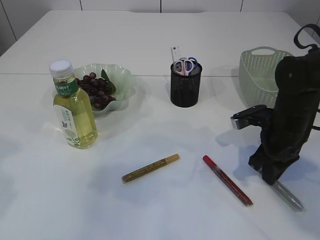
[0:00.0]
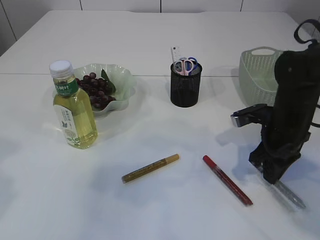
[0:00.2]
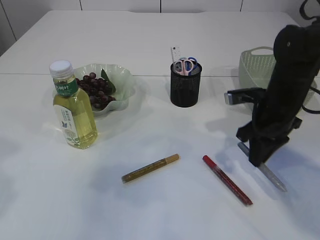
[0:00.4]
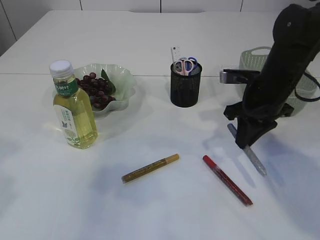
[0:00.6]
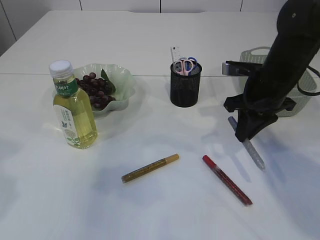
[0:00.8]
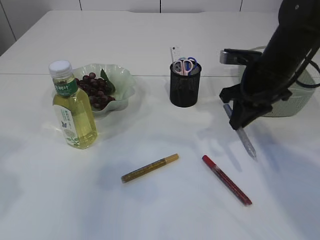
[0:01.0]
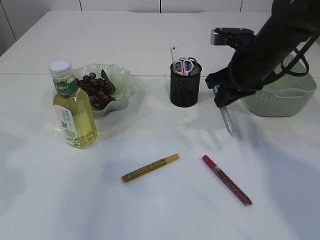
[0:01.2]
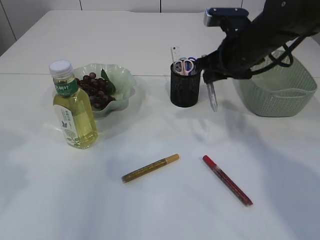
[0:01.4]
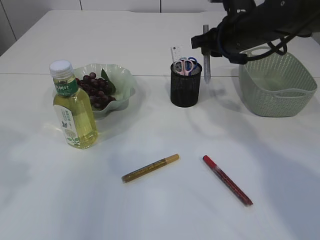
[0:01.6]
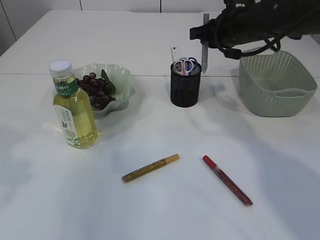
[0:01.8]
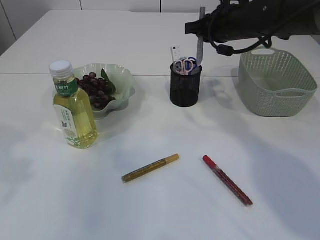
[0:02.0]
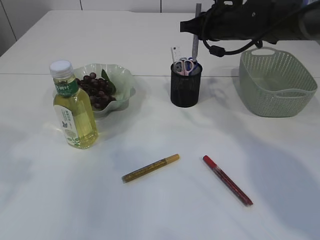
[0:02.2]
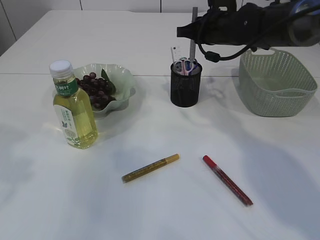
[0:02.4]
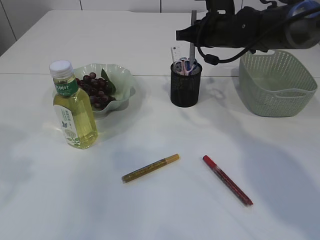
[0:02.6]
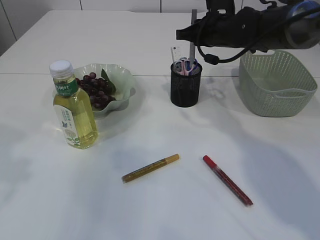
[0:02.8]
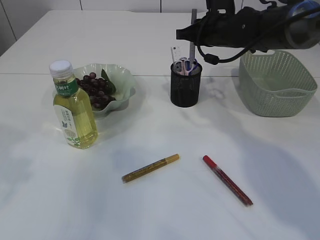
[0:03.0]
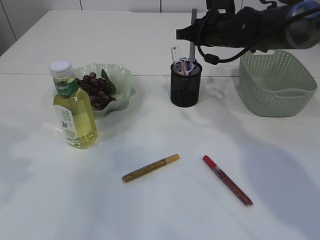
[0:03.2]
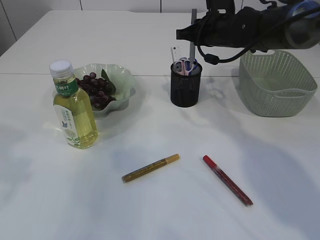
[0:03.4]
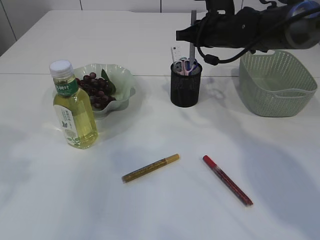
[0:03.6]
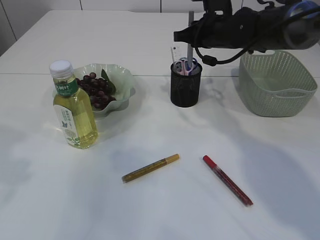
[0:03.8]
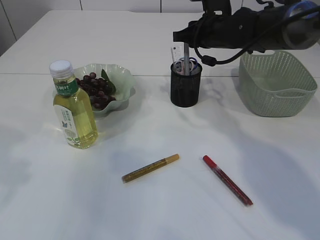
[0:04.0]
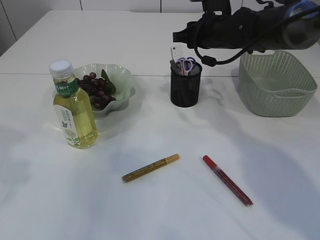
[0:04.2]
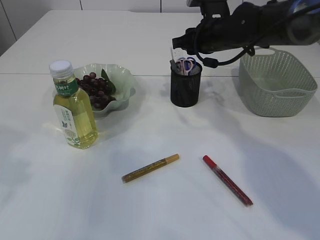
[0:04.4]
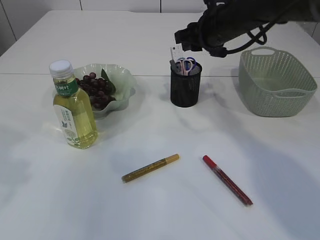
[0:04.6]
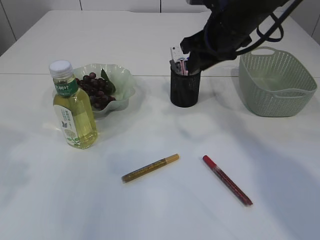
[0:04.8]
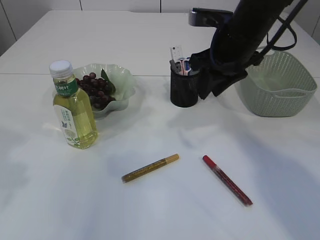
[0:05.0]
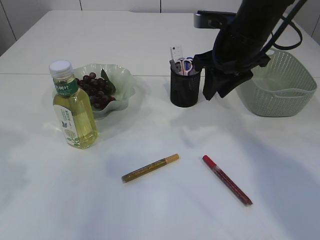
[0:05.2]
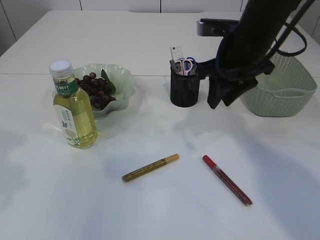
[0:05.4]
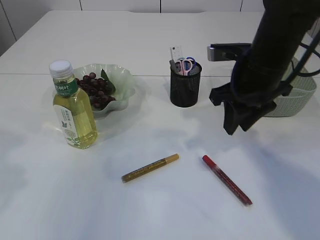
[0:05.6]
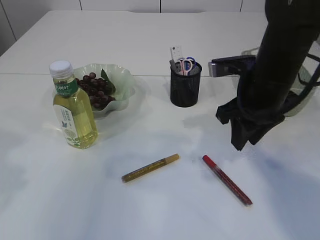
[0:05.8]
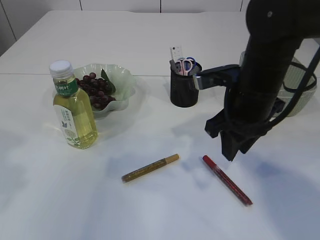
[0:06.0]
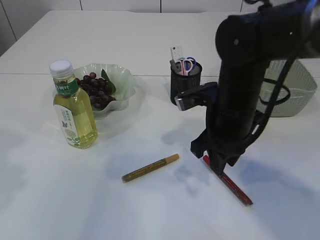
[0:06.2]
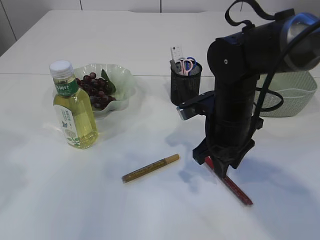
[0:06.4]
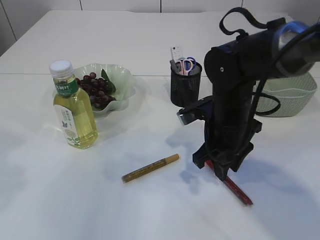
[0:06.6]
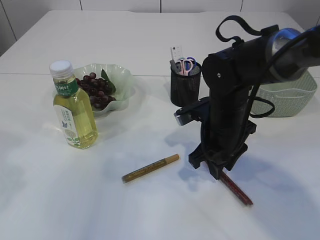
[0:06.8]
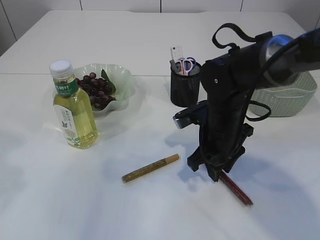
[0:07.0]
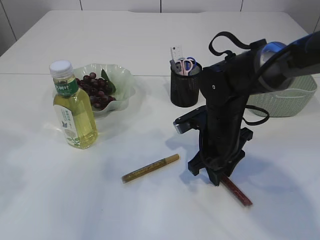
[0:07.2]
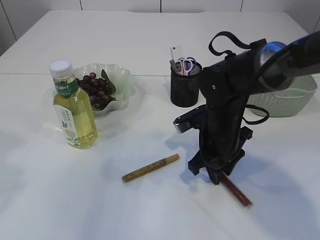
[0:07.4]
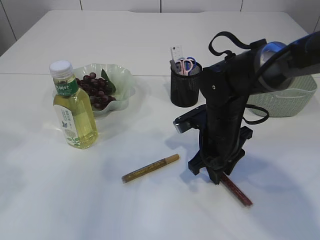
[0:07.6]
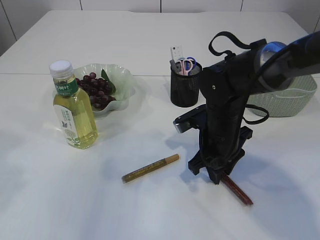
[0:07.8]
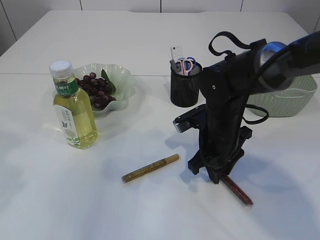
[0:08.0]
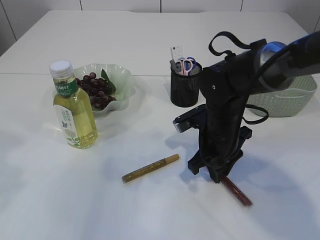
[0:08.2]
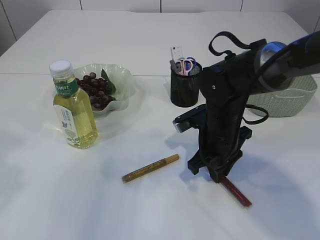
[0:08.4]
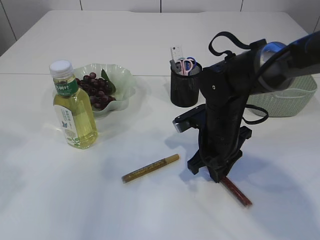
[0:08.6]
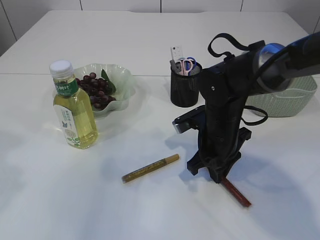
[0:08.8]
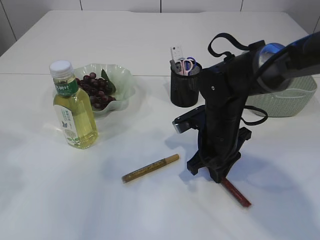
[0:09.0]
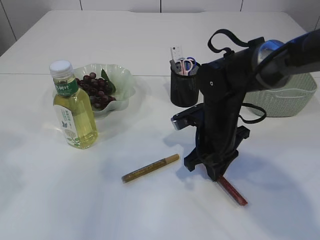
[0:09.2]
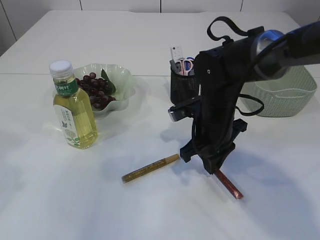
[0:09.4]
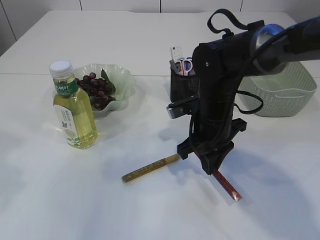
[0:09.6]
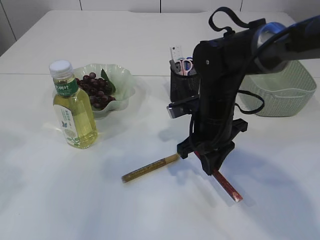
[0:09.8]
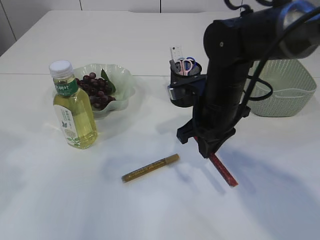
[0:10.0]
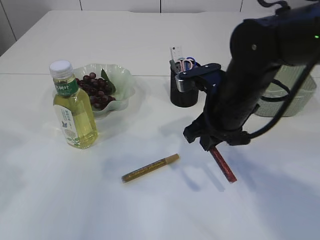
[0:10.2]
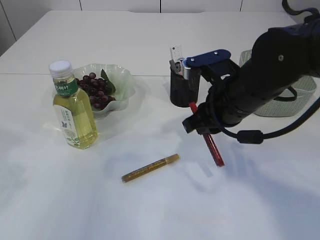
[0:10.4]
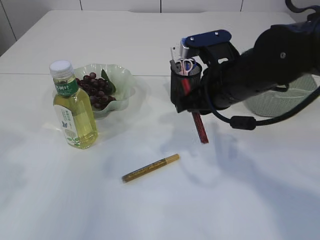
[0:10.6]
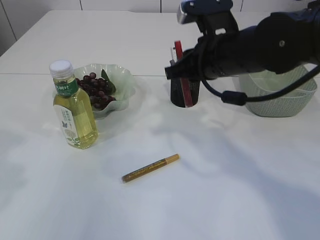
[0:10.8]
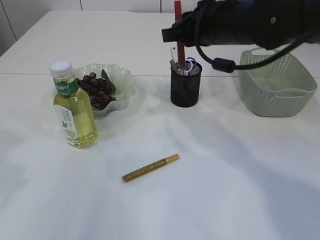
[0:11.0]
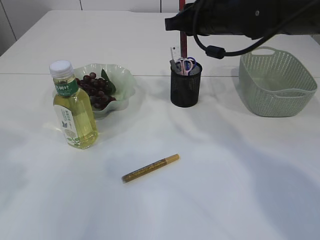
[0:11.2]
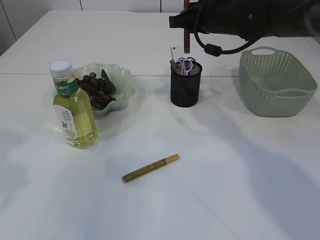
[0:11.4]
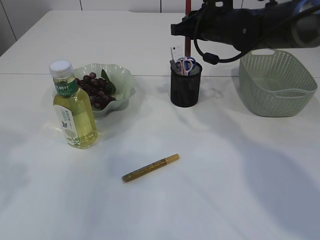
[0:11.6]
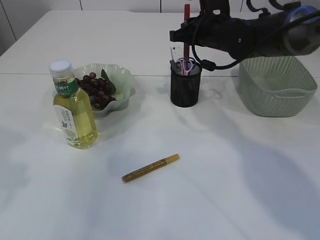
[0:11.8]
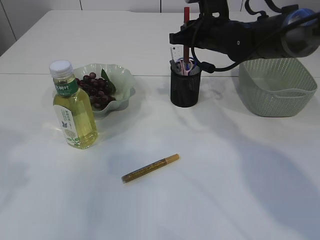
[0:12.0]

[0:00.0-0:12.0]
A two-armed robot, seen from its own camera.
Step, 0:01.0 to 0:04.2: place the silver glue into the pen holder.
Step, 0:04.4 to 0:10.0: pick up the red glue.
0:00.0 to 0:01.6: The right gripper travels upward, forward and to the left by approximately 15 cm.
0:01.6 to 0:03.0: The right gripper moves forward, about 5 cm.
0:03.0 to 0:04.4: The right gripper opens up.
0:04.4 to 0:06.0: The right gripper is displaced backward by approximately 15 cm.
0:06.0 to 0:07.6: The right gripper is displaced downward by about 10 cm.
0:07.6 to 0:09.0: The right gripper closes its fingers.
0:09.0 to 0:10.4: The right gripper goes approximately 10 cm upward.
0:10.4 to 0:12.0: The right gripper is displaced forward by some 15 cm.

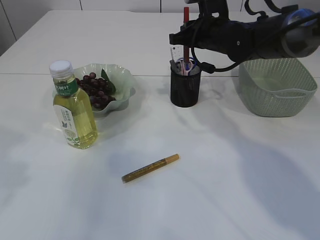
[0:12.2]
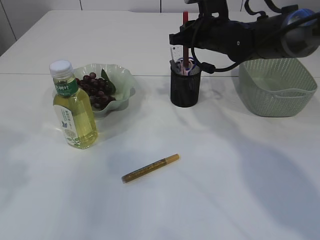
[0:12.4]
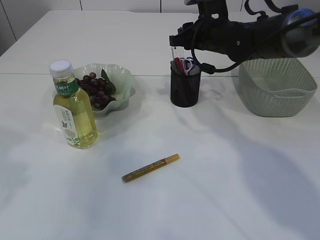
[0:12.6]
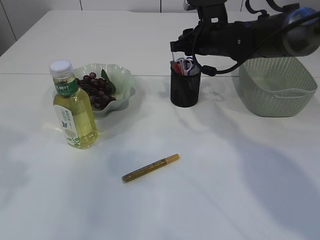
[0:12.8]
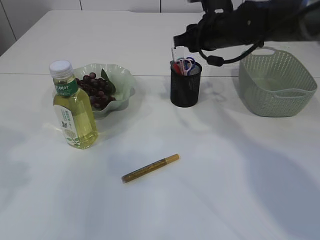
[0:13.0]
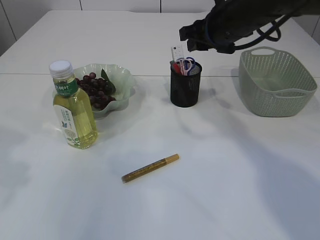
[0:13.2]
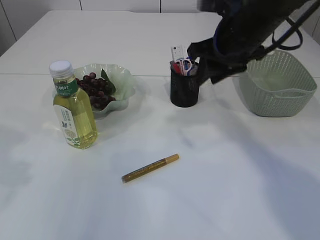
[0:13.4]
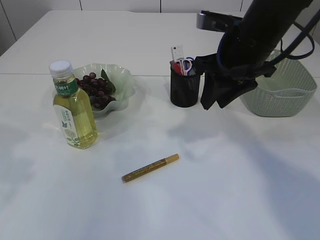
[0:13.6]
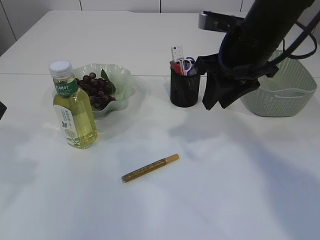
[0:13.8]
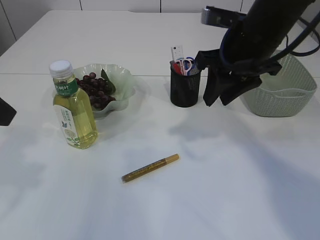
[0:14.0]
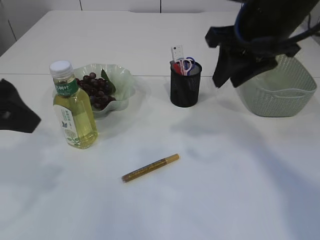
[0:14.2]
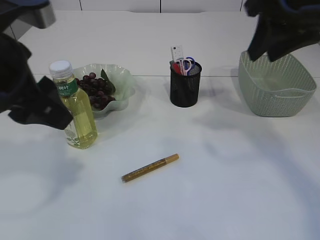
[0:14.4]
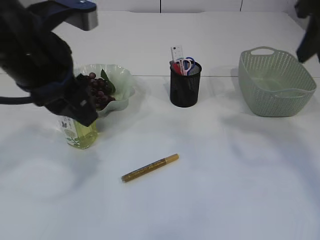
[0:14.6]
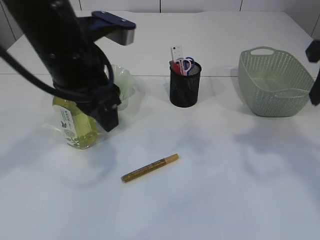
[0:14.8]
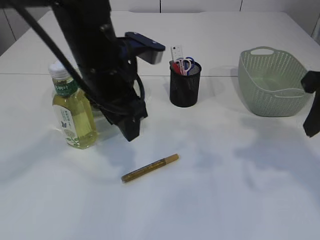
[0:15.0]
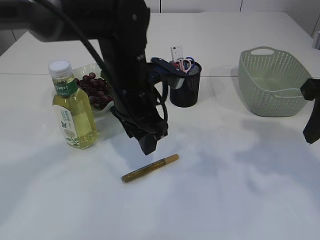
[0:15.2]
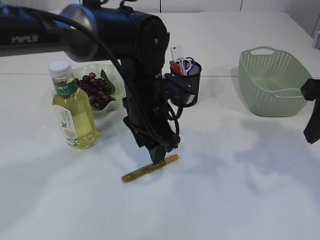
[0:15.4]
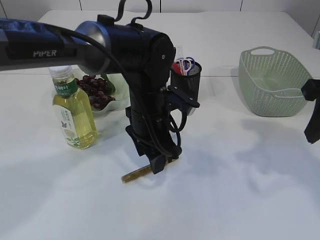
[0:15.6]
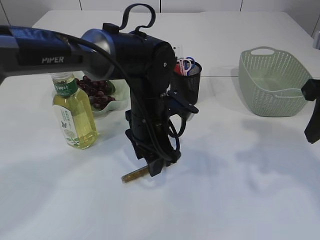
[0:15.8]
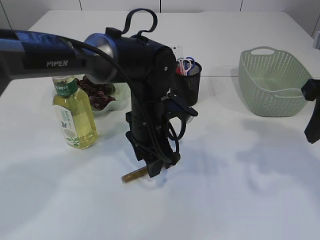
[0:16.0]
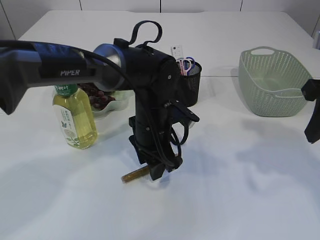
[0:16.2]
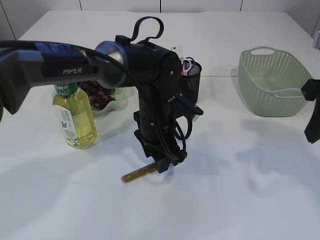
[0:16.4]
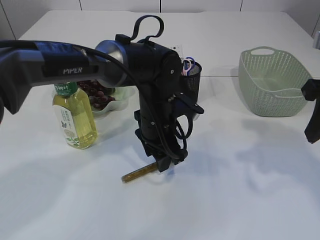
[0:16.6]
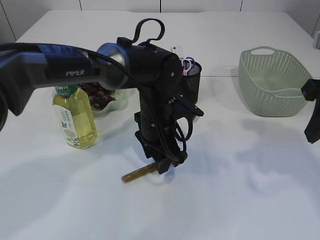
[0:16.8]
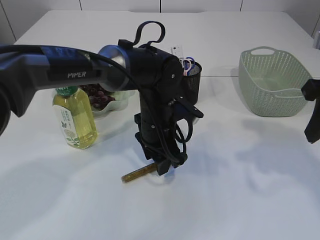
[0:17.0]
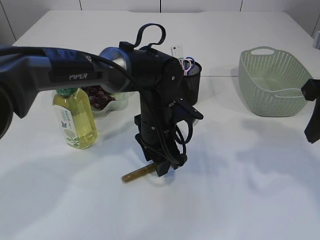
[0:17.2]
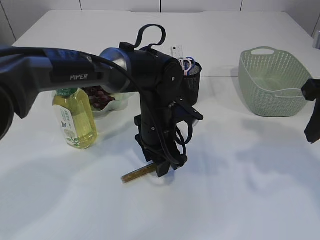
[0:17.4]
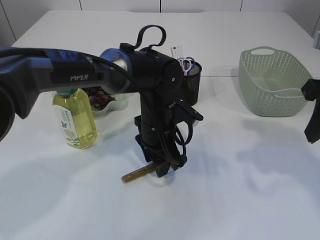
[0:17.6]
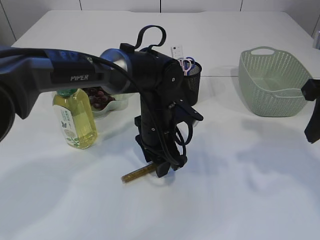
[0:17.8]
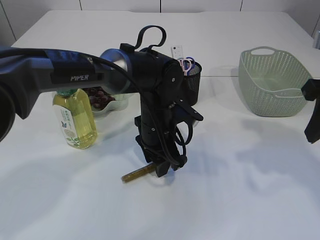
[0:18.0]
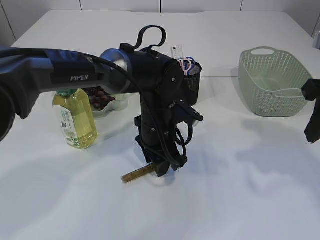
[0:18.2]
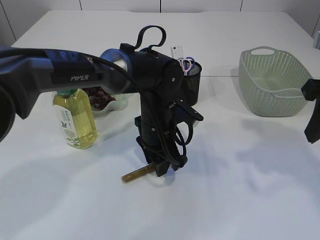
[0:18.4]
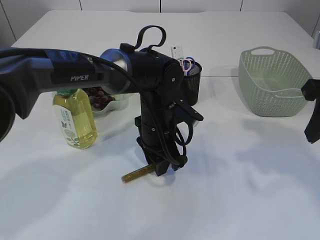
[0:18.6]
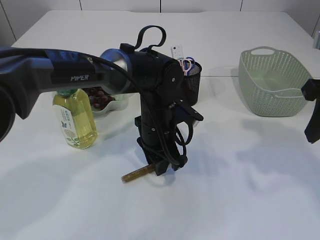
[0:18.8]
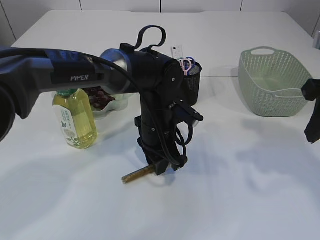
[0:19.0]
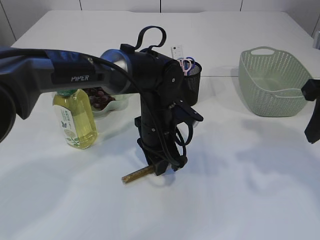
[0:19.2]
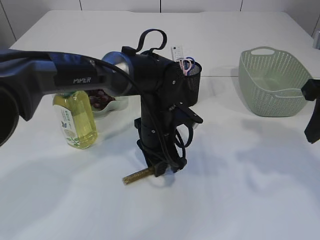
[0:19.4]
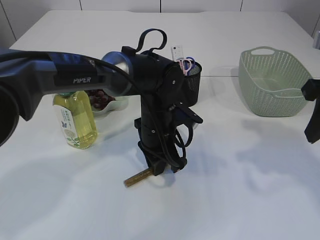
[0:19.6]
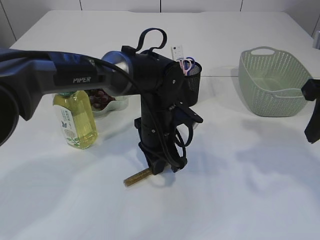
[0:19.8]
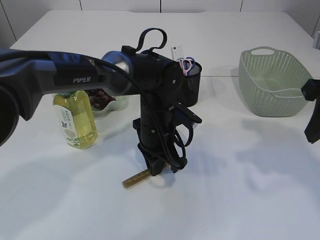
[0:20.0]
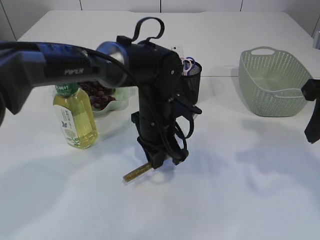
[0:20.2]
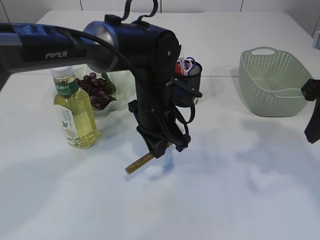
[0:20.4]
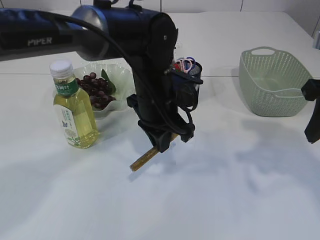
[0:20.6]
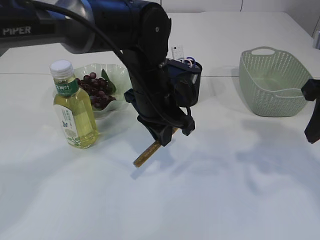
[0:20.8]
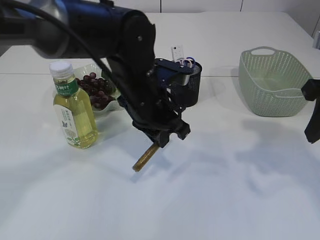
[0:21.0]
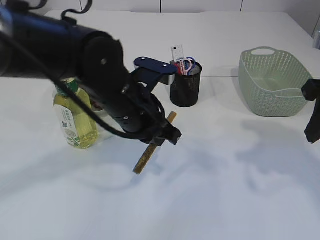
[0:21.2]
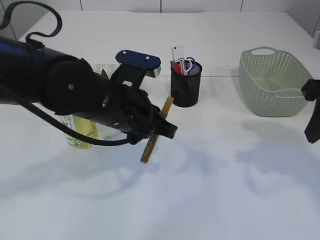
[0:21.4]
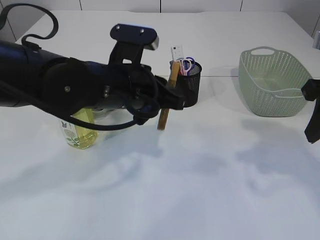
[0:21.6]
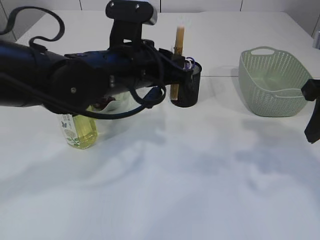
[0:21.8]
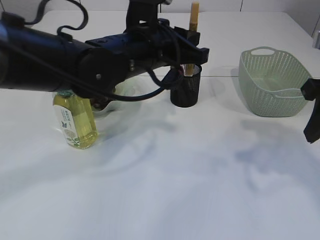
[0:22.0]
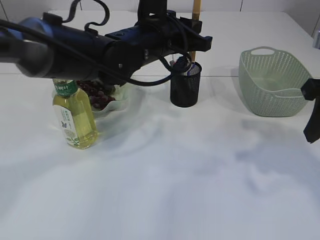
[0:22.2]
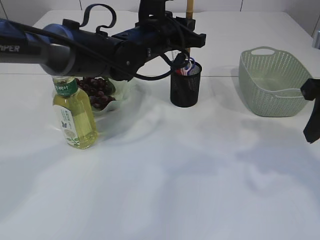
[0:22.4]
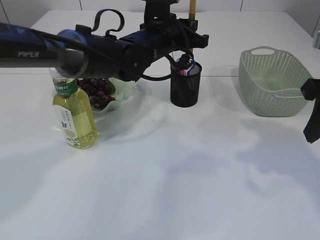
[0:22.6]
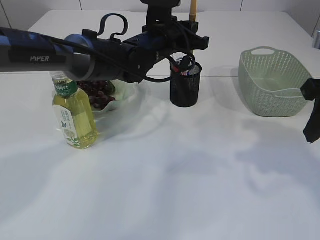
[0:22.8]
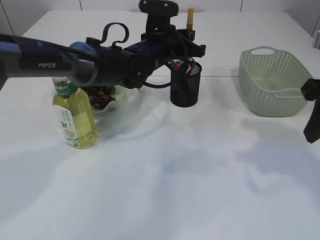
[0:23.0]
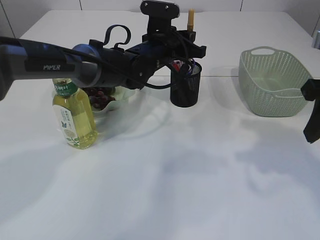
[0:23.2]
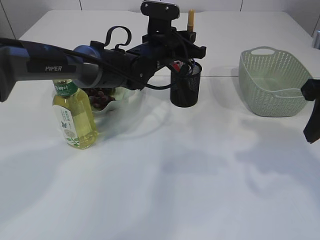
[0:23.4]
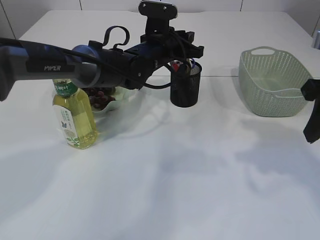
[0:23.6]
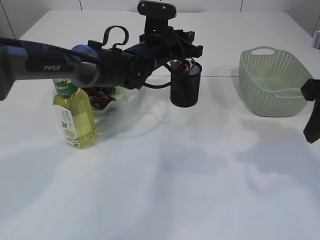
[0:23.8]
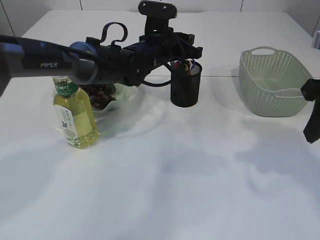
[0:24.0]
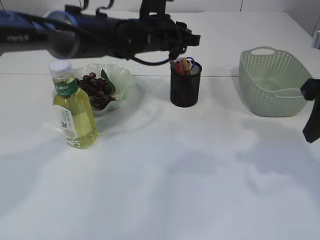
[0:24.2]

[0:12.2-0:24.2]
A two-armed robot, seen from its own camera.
Step, 0:13.4 to 0:21.0: pick up the yellow glue.
0:12.2 to 0:13.8: The right gripper goes some 15 cm backward and upward, and opens.
0:13.8 to 0:15.2: The left gripper heads to the right, forward and downward, covering approximately 25 cm. The right gripper travels to the right and backward by about 15 cm.
0:15.2 to 0:16.6: The left gripper travels downward by some 10 cm.
0:16.6 to 0:18.2: The grippers stay close to where they were, moving slightly.
0:18.2 to 0:19.8: The left gripper closes.
0:19.8 to 0:21.2: The left gripper travels upward and backward by approximately 10 cm.
0:21.2 to 0:22.6: The left gripper moves forward, roughly 15 cm.
0:22.6 to 0:24.2: There are only small adjustments of the grippers.
